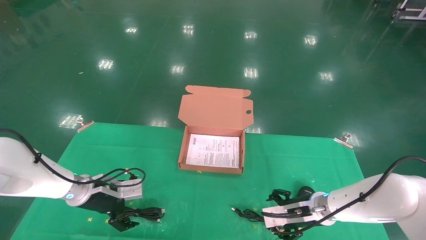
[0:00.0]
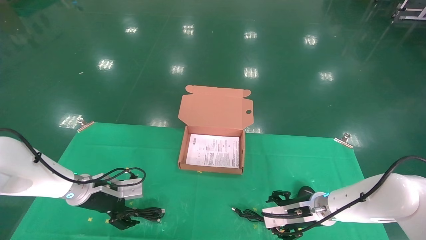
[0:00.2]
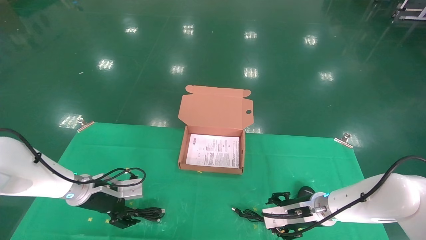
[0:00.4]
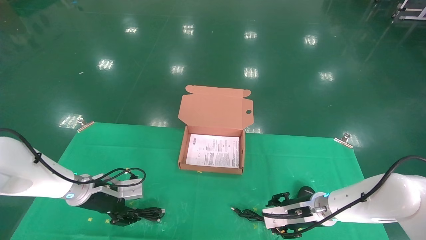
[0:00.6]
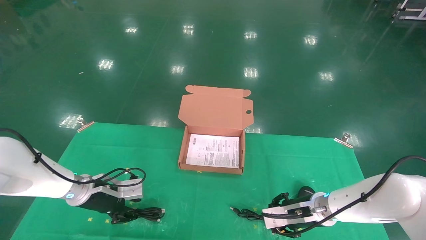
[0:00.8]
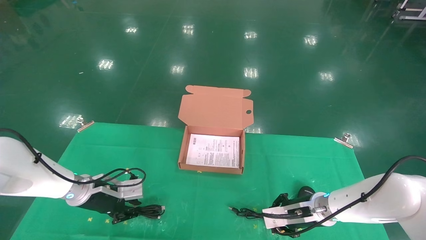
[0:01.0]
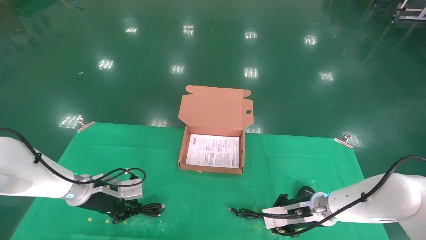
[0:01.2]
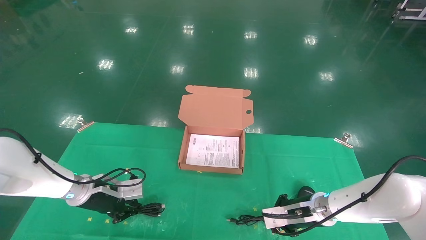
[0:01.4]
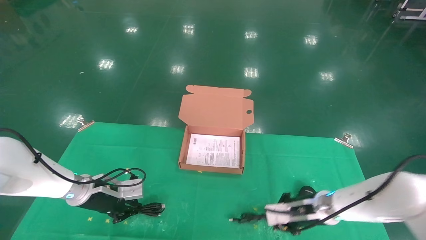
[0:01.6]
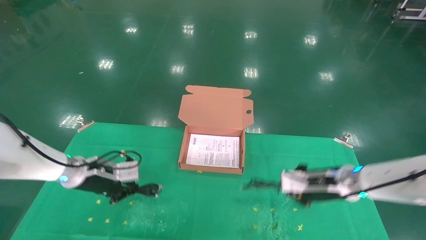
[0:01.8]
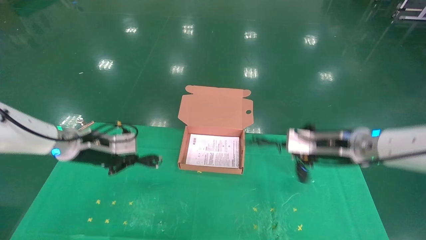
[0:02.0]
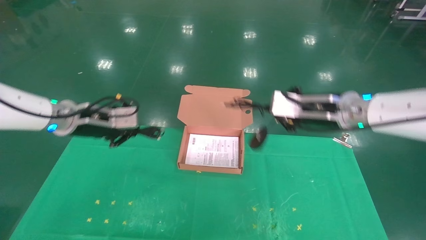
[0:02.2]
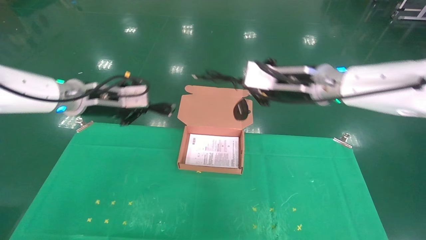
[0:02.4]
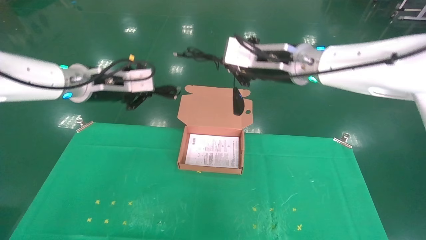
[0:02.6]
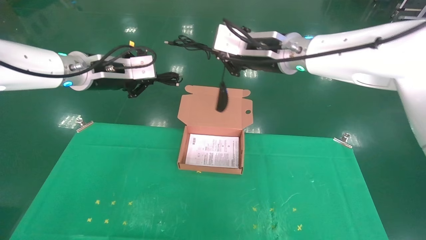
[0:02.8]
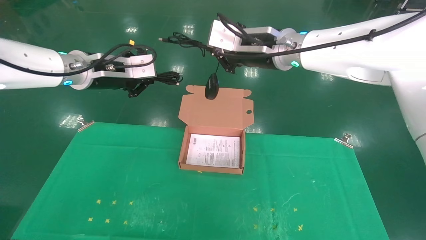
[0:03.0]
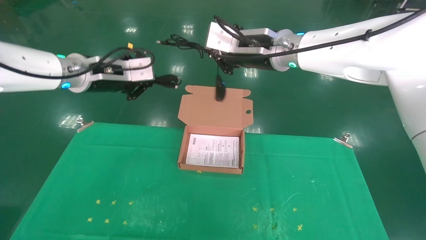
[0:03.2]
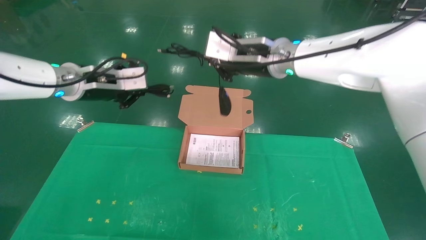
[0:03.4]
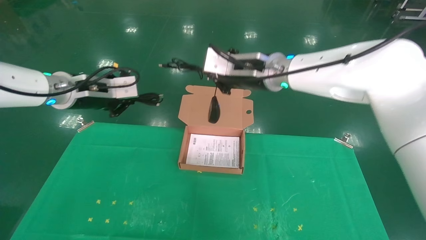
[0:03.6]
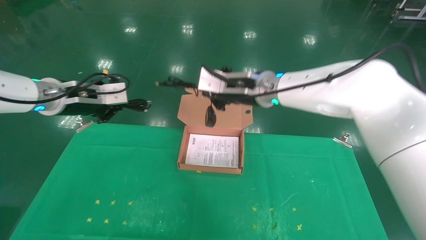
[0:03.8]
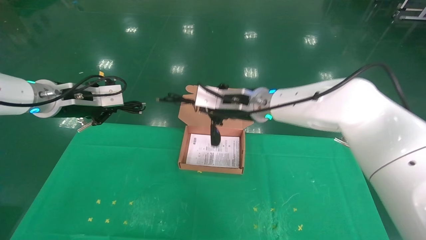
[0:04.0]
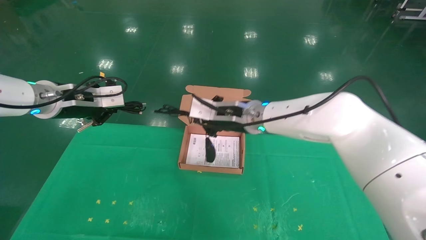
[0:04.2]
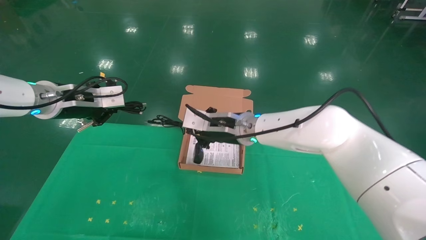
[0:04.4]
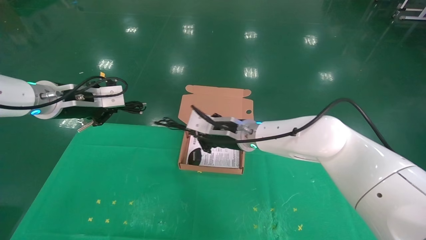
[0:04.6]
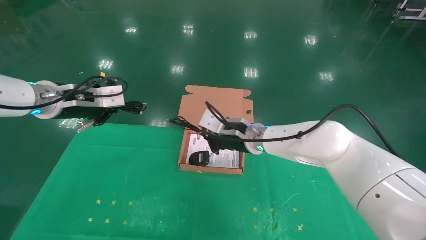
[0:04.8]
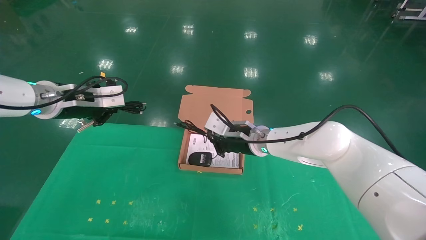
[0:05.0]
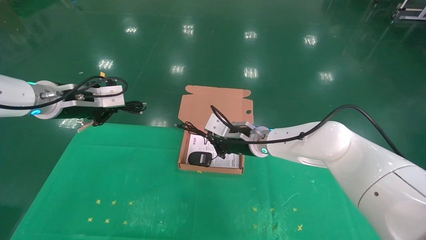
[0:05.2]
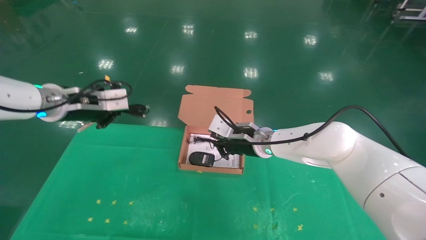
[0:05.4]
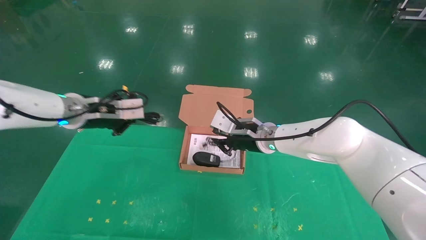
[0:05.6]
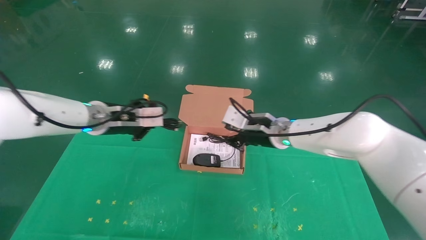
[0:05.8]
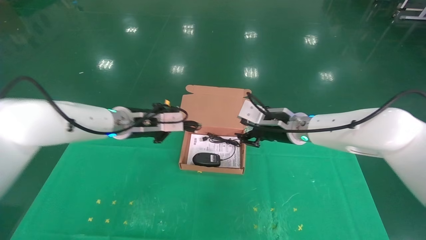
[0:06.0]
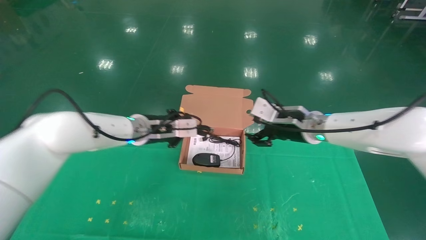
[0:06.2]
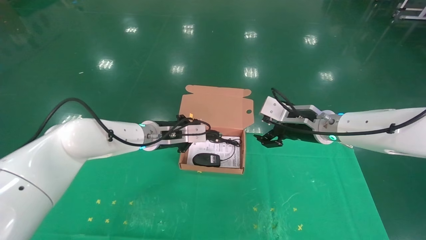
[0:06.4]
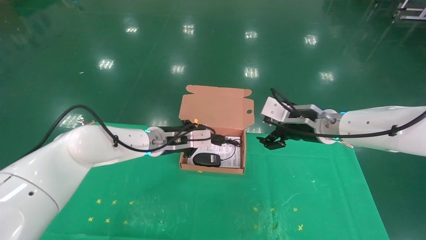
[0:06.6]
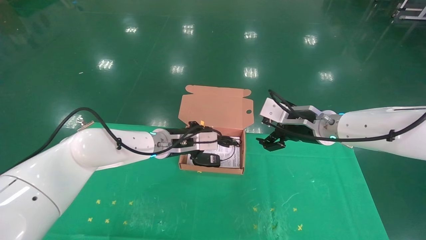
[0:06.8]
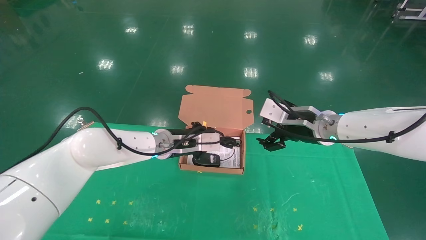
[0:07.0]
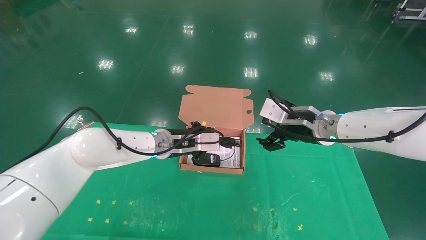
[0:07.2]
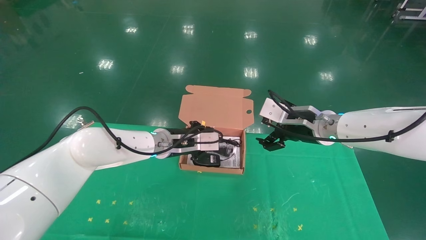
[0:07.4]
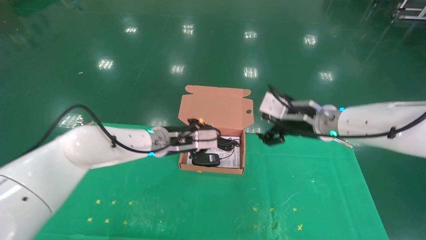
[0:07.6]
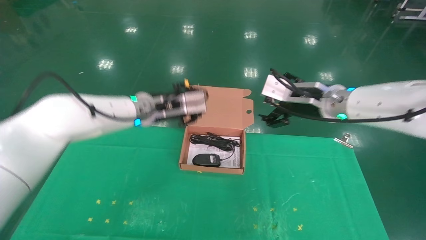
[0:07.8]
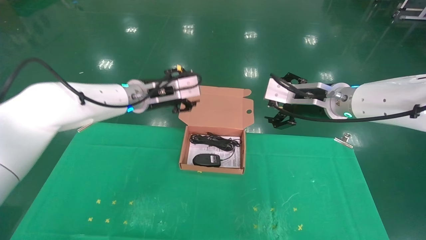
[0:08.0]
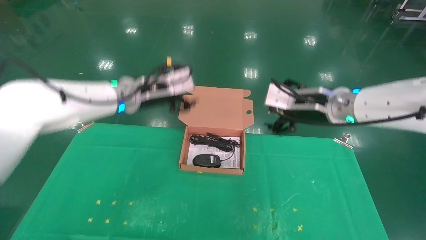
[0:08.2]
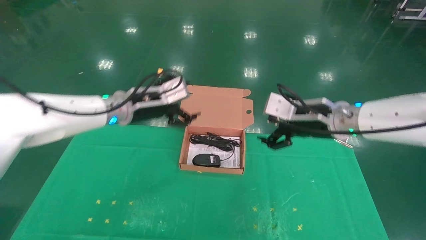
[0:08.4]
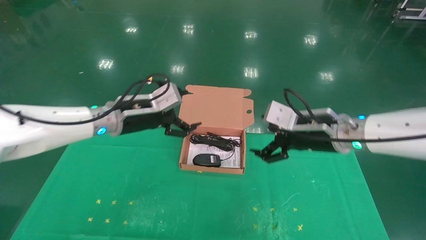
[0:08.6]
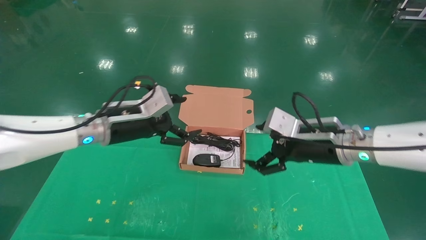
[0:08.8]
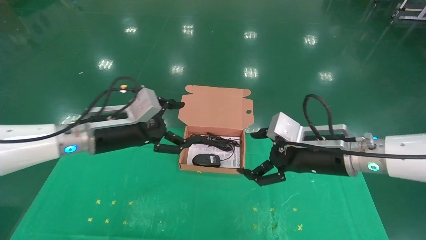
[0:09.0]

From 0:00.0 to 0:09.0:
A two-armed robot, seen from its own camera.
Task of the whole recording: grasp data cable left put into box grasp mouse right put into box.
Step, from 0:00.0 to 0:02.0: Grab and pick up both the mouse and power cord from the accessory packaging area at the same time.
Step, from 0:02.2 to 0:07.4: Place the mouse and power cord into the box.
From 0:00.0 to 0:01.6: The left gripper closes up. The right gripper closes.
From 0:01.6 to 0:03.0: The left gripper heads upward, covering approximately 25 cm, while the right gripper shifts approximately 35 cm upward and to the left.
From 0:03.0 to 0:04.4: The right gripper goes roughly 15 cm downward, while the left gripper travels to the left by some 5 cm.
From 0:04.4 to 0:06.0: The left gripper goes approximately 15 cm to the right, downward and forward. Meanwhile the right gripper travels to the right by about 10 cm, and opens its fingers.
From 0:06.0 to 0:07.6: The right gripper shifts by some 5 cm, and opens up, while the left gripper is displaced to the right by approximately 5 cm.
From 0:07.6 to 0:09.0: The left gripper heads backward and to the left, covering some 15 cm, and opens, while the right gripper shifts some 10 cm backward.

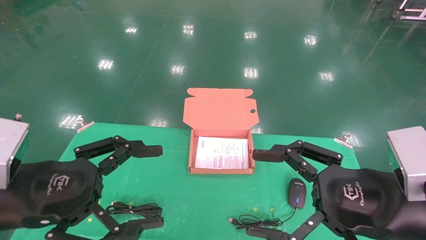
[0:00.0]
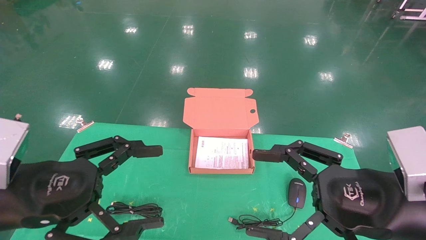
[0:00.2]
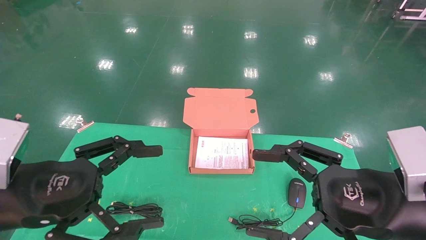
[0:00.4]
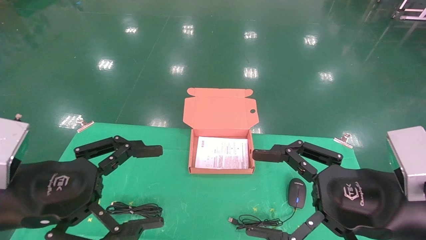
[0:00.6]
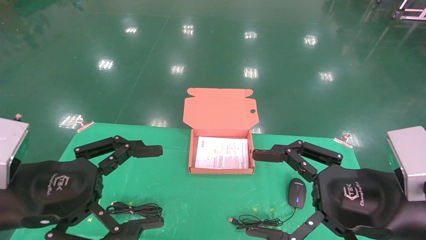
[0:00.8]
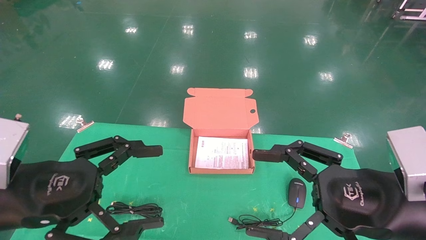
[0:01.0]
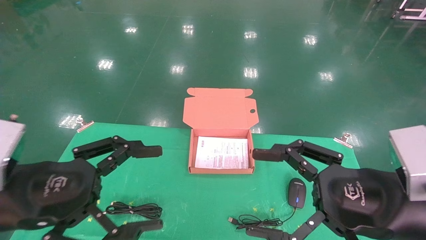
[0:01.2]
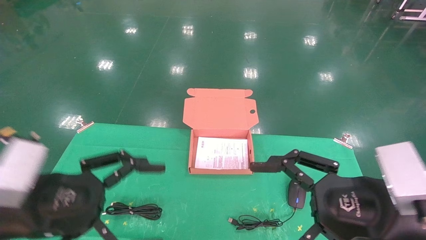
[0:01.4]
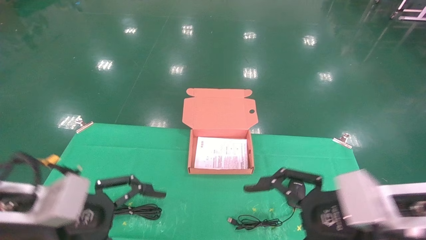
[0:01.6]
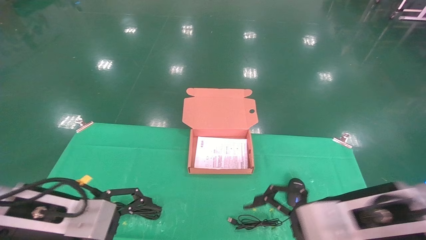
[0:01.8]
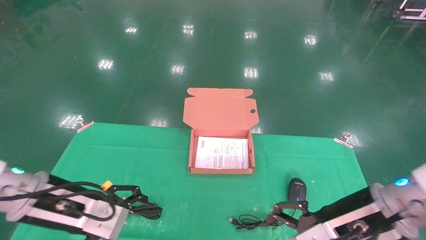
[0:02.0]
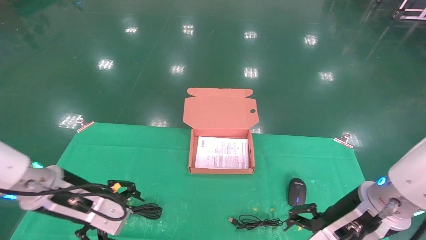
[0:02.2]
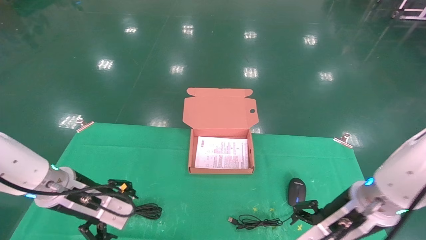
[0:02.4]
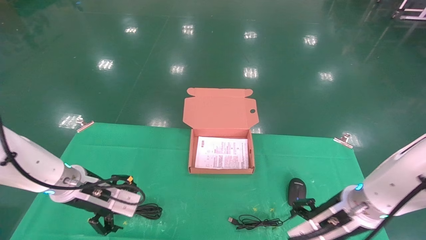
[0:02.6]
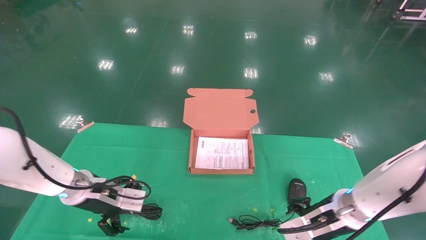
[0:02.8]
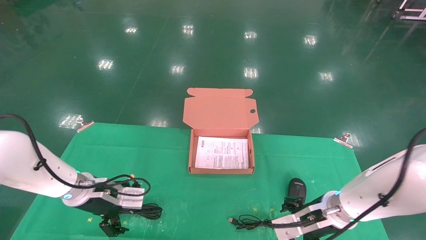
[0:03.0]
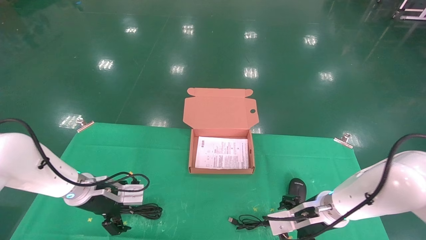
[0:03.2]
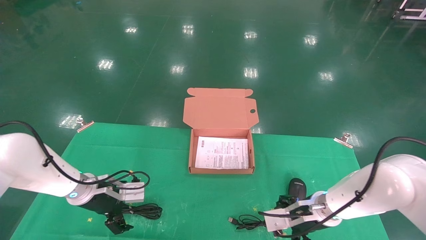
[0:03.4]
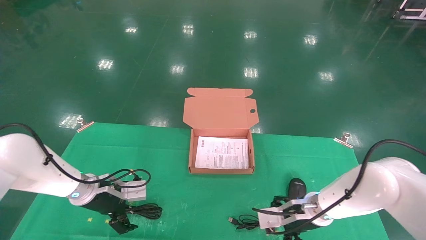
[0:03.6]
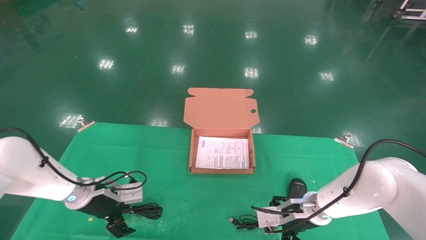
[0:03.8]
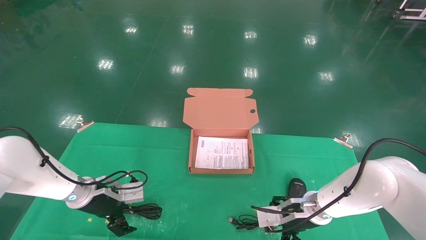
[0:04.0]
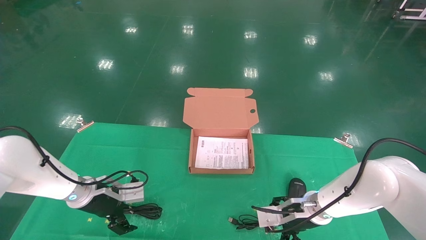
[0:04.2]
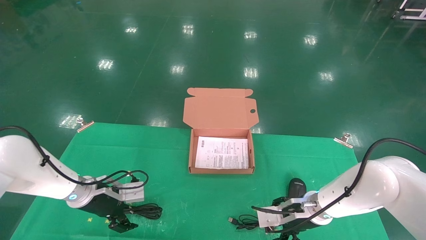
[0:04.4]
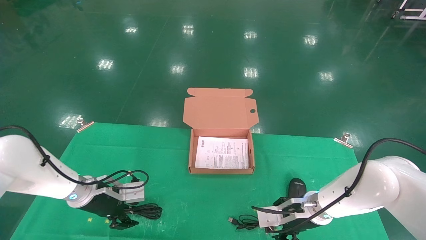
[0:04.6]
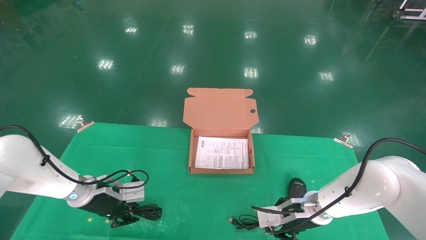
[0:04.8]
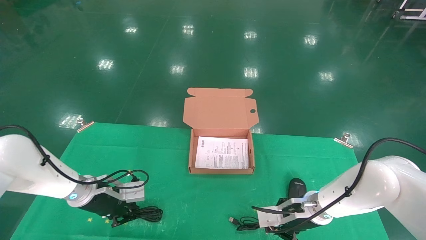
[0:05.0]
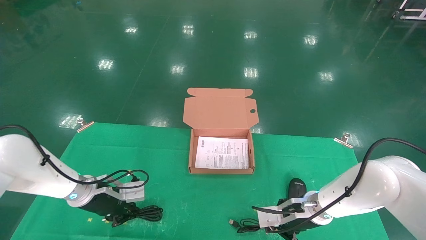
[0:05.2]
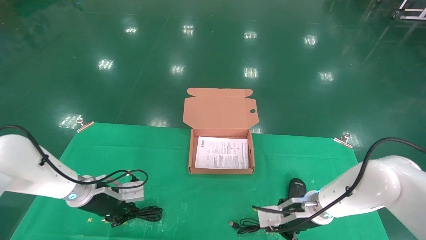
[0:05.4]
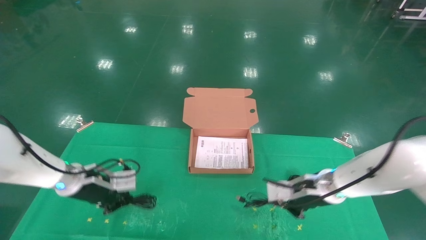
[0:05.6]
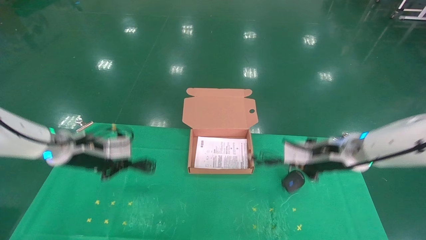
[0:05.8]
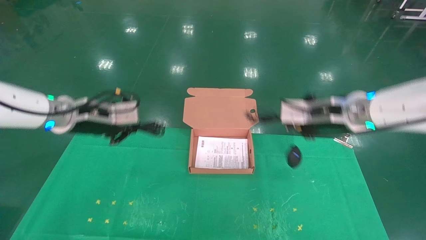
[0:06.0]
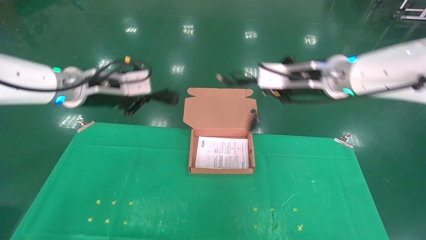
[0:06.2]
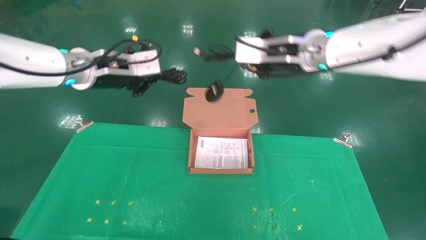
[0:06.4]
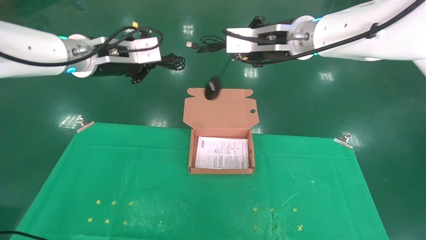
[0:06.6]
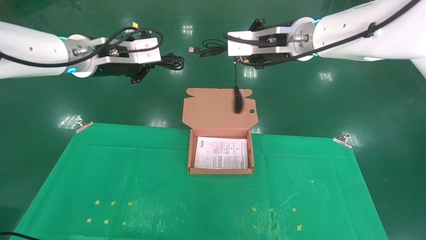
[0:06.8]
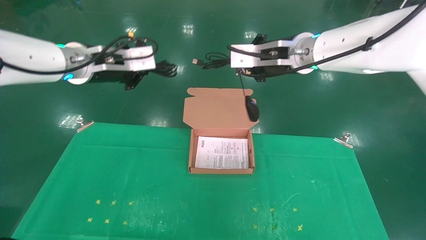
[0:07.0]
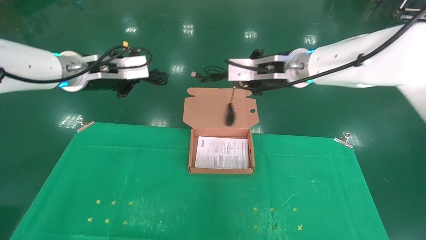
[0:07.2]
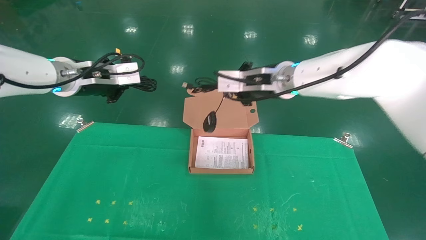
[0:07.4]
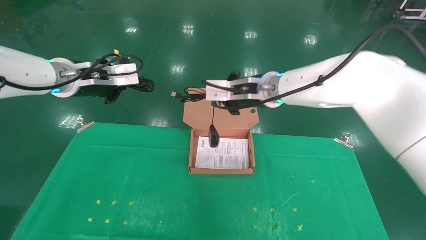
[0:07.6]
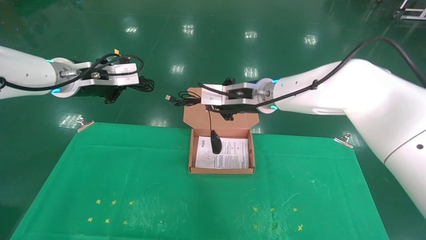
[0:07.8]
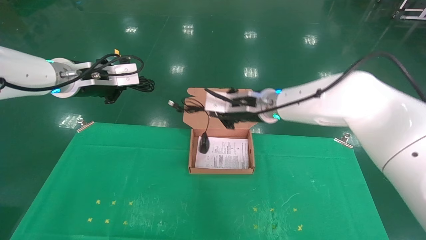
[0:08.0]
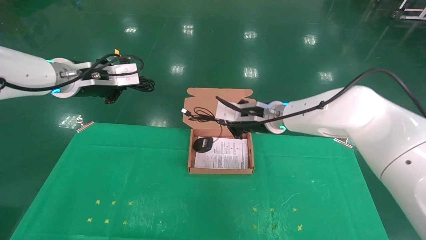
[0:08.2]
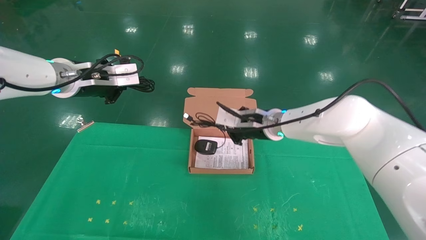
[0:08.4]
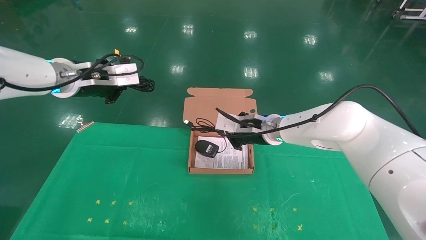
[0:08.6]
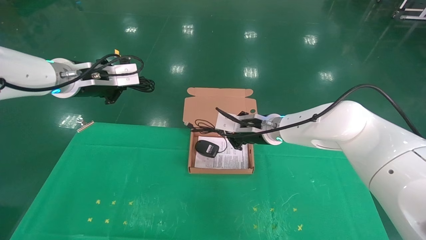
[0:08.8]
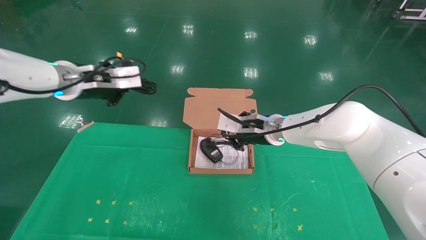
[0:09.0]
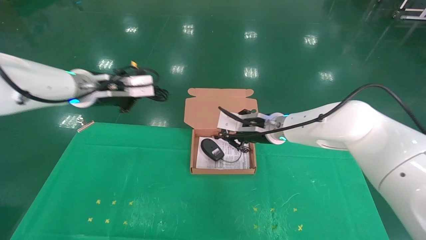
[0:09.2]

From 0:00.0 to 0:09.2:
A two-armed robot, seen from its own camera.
Task of the whole recording: grasp data cable left put into box grasp mouse right put into box.
Step, from 0:00.8 to 0:05.4: Grab and pick up both the mouse and power cord from the accessory packaging area at the same time.
From 0:01.6 to 0:03.0: Both grippers travel together forward and downward, roughly 20 cm.
From 0:03.0 to 0:04.6: The left gripper closes up. Meanwhile the right gripper moves some 5 cm, and closes up.
From 0:04.6 to 0:06.2: Both grippers move upward, some 25 cm. The right gripper closes its fingers. The left gripper closes.
From 0:06.2 to 0:07.6: The right gripper heads to the left, covering approximately 10 cm.
From 0:07.6 to 0:09.2: The right gripper shifts roughly 10 cm downward.
